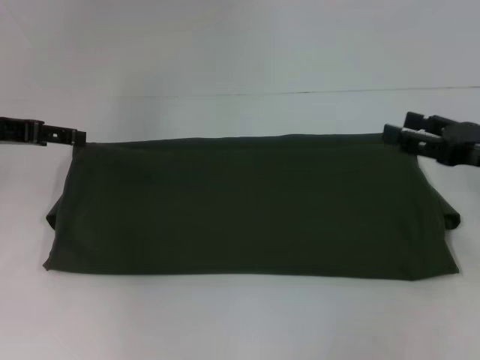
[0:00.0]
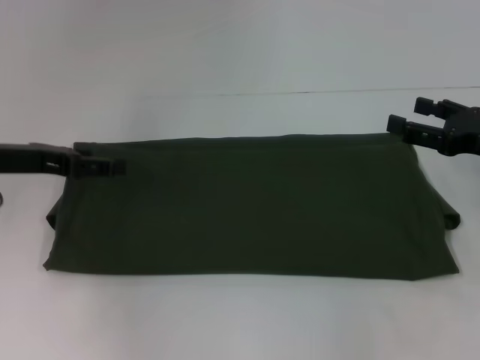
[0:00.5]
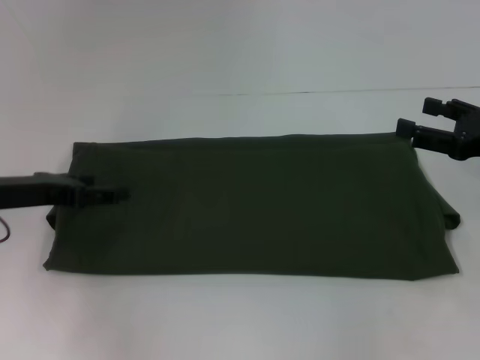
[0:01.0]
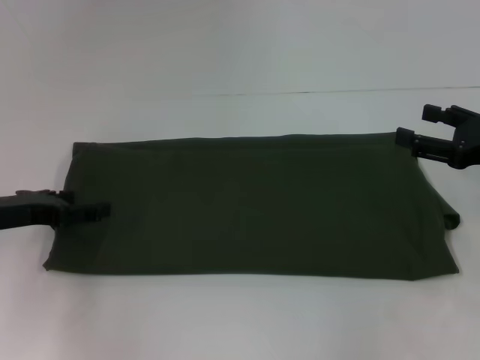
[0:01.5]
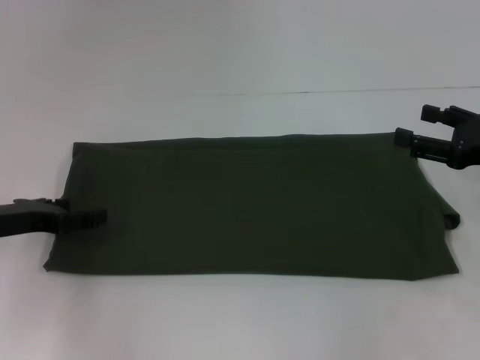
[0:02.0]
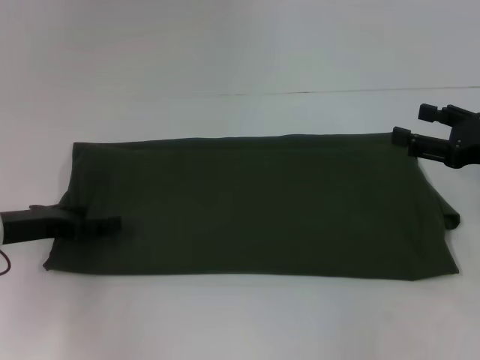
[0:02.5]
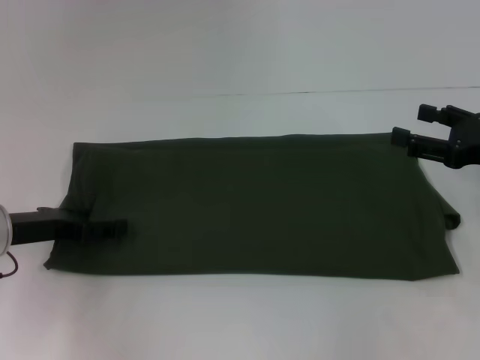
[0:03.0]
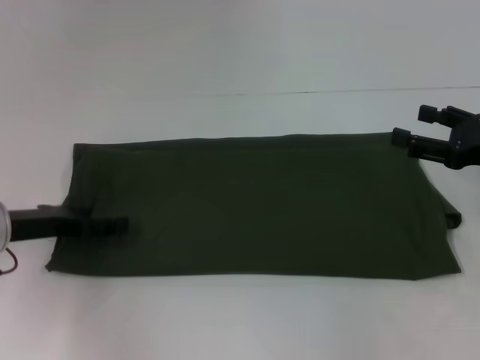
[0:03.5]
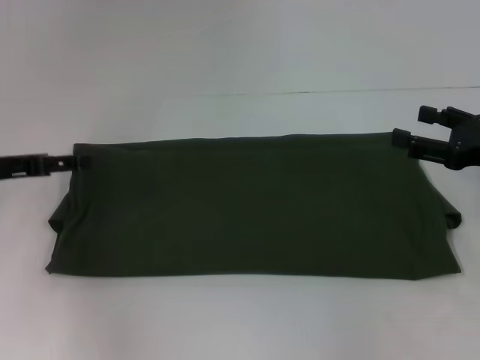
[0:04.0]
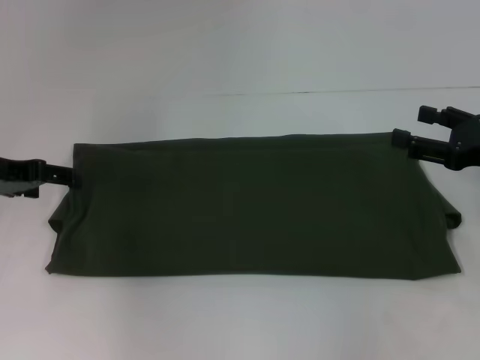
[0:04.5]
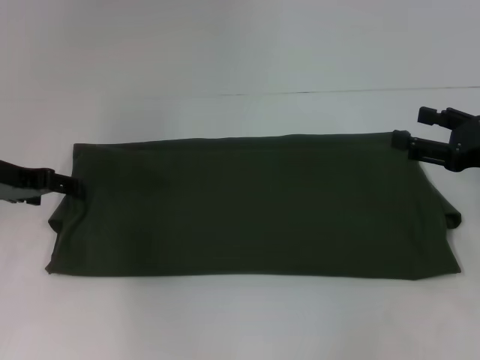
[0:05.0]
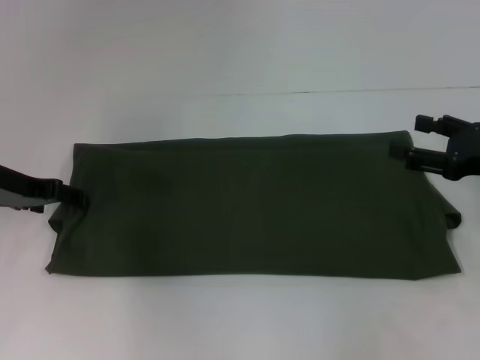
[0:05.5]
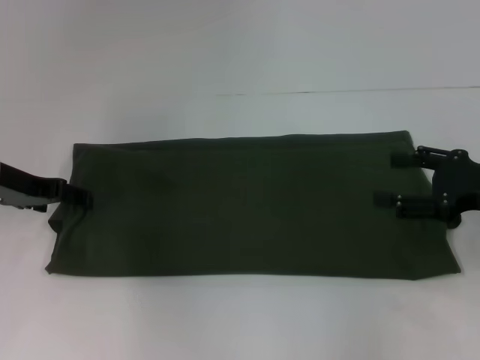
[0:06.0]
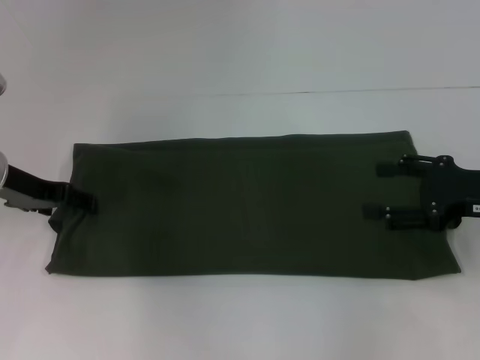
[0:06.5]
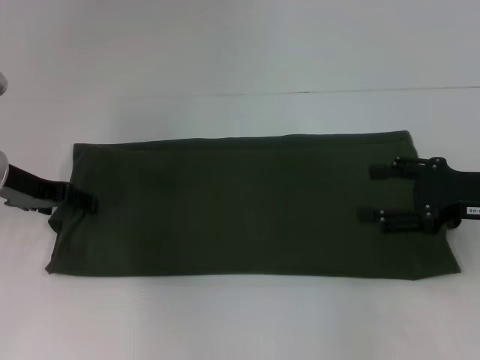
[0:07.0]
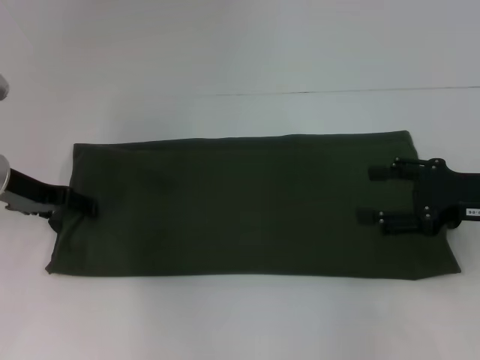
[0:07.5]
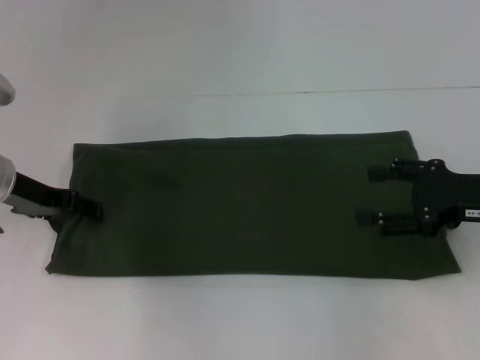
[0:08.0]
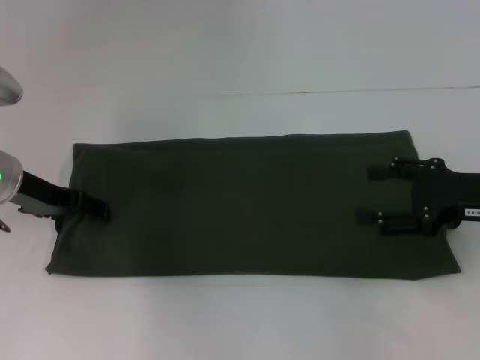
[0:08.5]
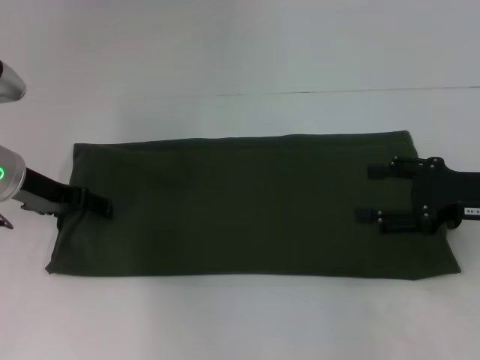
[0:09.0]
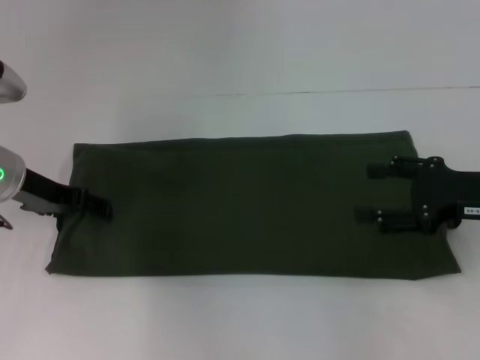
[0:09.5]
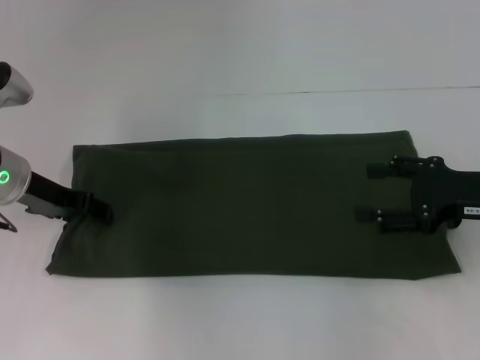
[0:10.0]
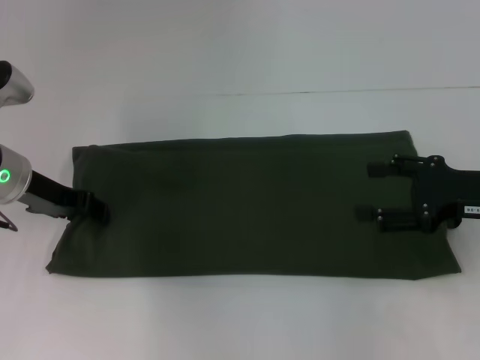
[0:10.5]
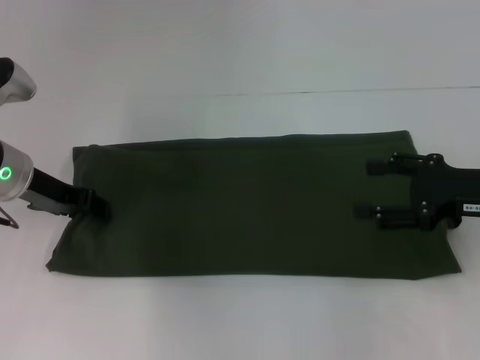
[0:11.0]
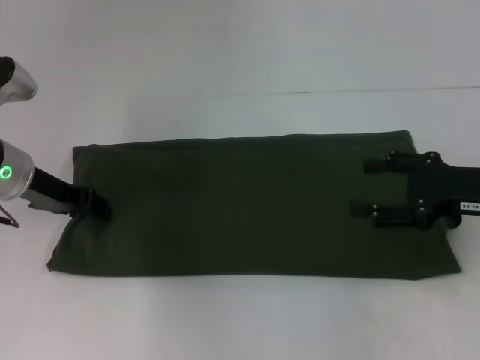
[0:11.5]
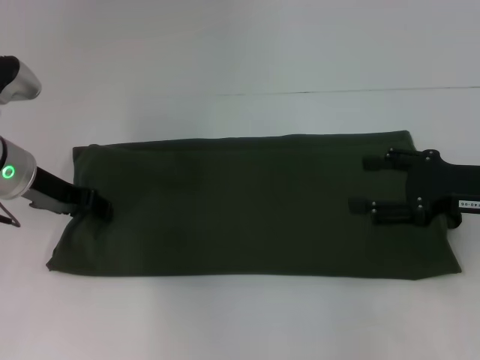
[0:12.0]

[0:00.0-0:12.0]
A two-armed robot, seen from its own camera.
0:00.0 to 0:02.0: The left gripper shifts roughly 10 cm downward and backward.
0:02.0 to 0:04.0: The left gripper shifts approximately 5 cm upward.
0:04.0 to 0:06.0: The left gripper shifts by some 5 cm.
0:06.0 to 0:10.0: There are only small adjustments of the grippers.
0:10.0 to 0:12.0: The left gripper closes up.

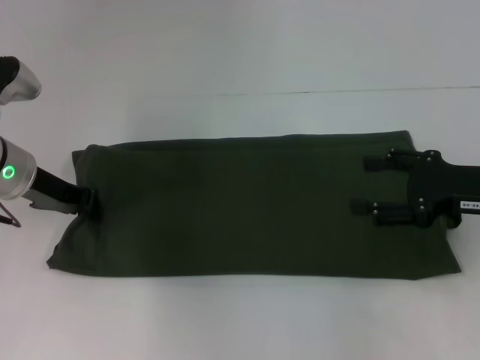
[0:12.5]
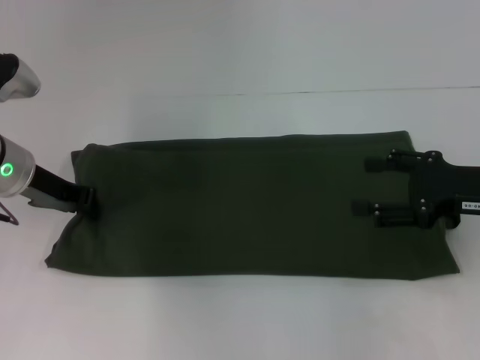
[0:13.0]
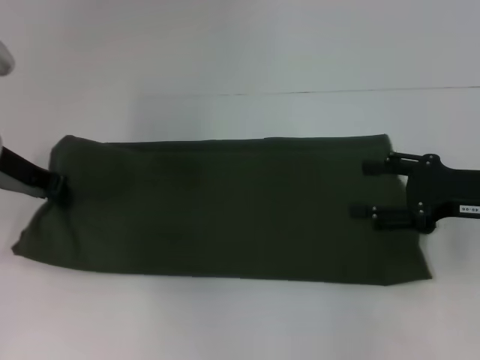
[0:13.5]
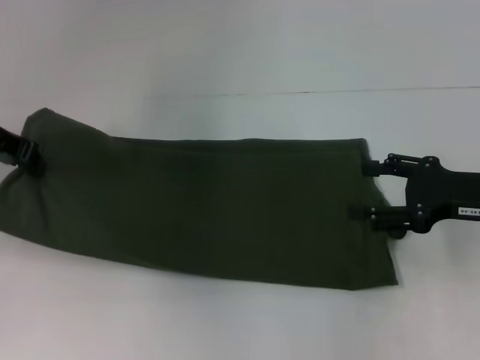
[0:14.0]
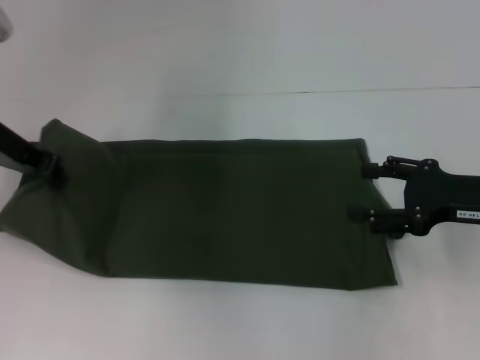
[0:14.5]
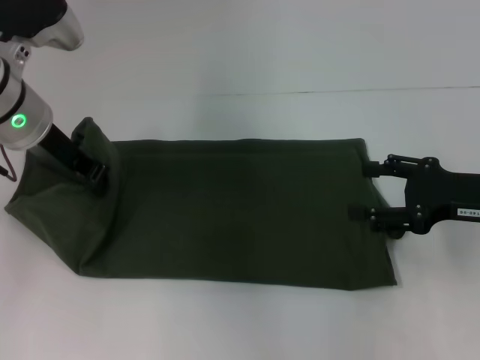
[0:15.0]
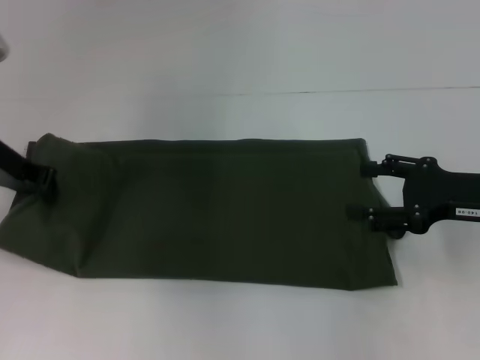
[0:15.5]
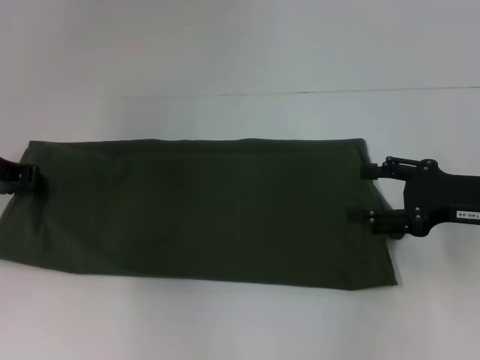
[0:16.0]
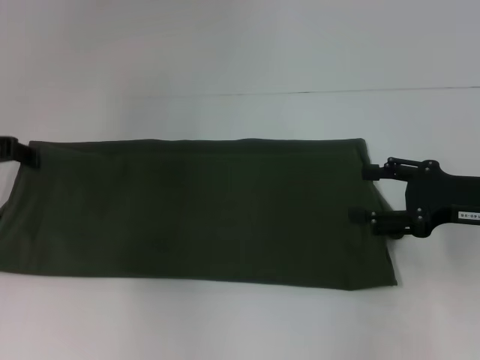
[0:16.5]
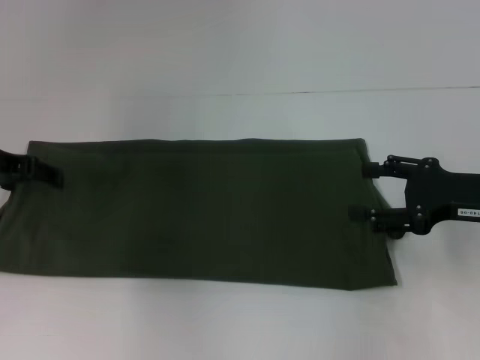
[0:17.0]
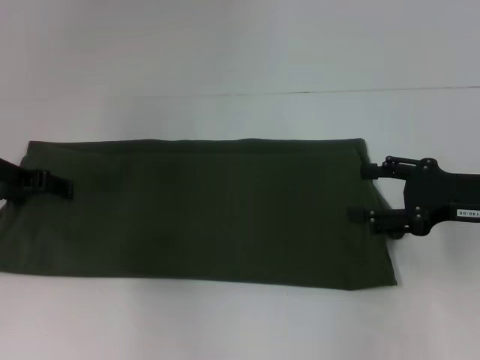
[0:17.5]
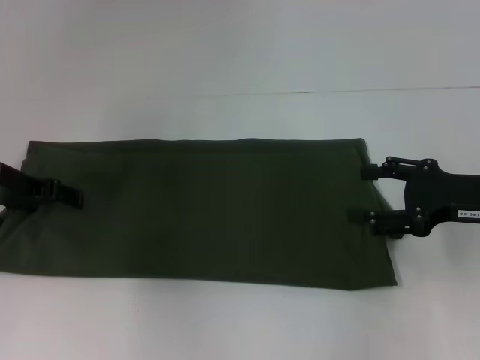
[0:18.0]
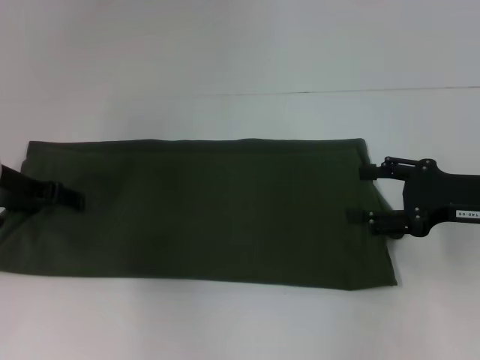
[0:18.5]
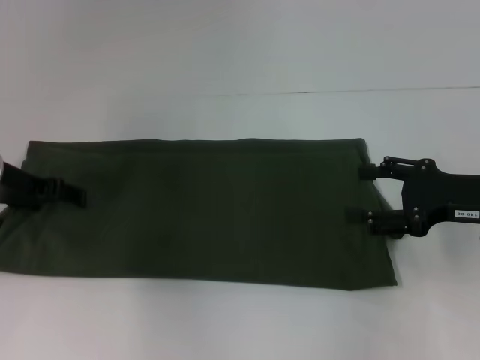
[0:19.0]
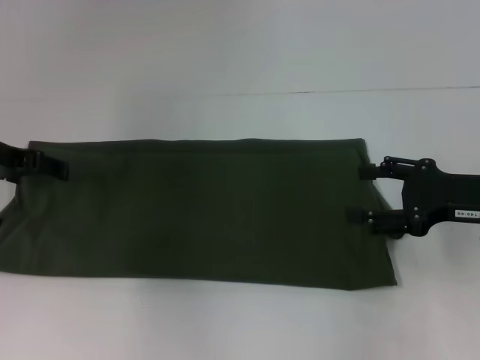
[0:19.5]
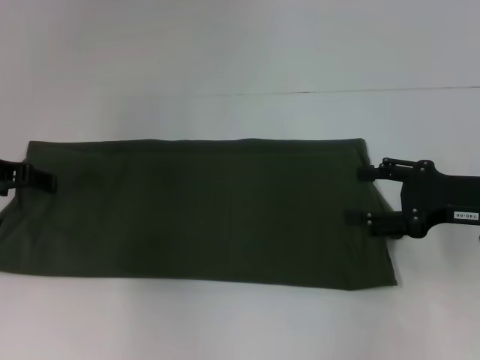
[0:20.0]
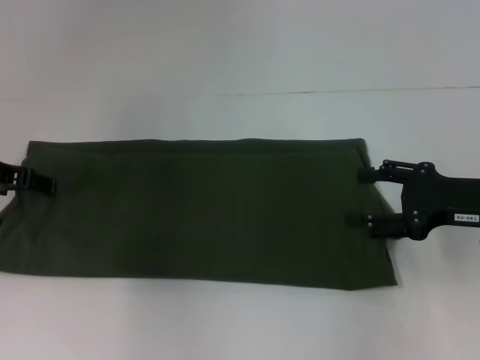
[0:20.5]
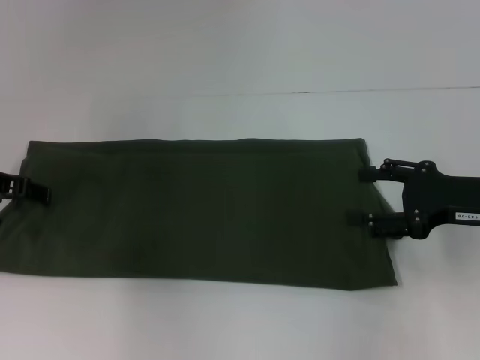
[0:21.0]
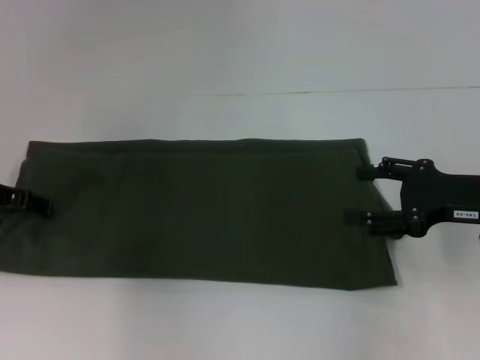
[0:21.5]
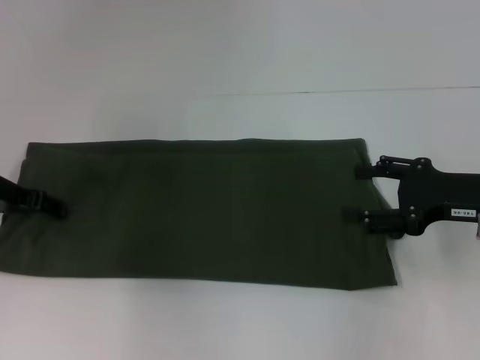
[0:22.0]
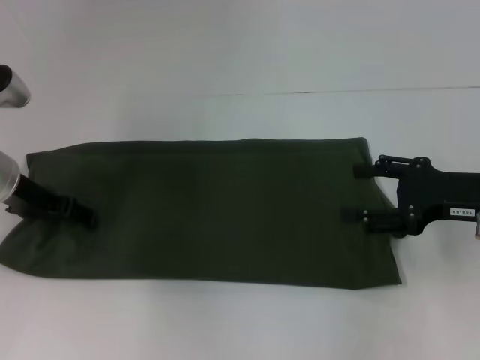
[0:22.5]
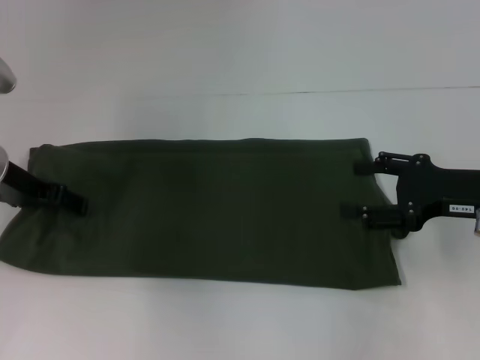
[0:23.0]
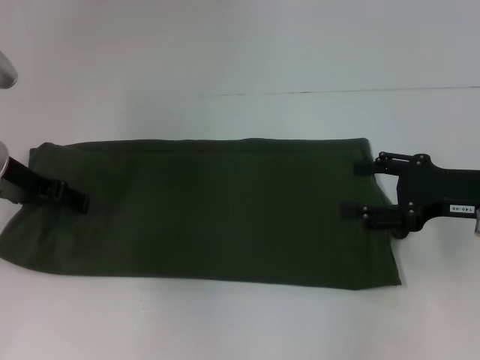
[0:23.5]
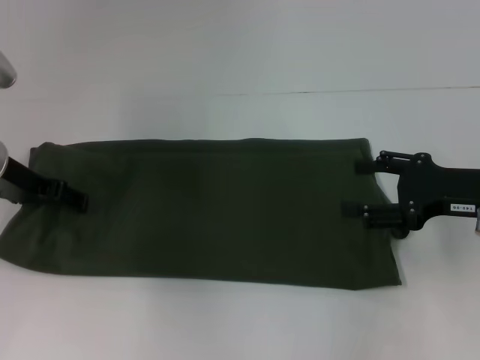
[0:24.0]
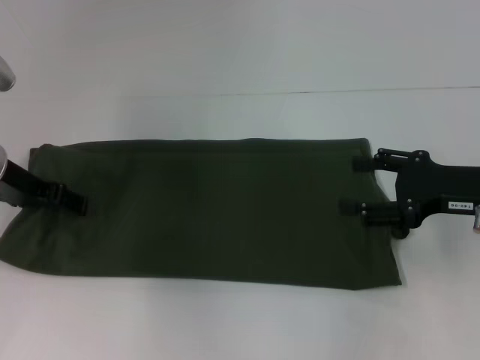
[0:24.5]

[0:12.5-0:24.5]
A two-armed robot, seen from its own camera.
0:12.5 to 0:14.5: The left gripper is displaced upward by some 5 cm.
0:14.5 to 0:16.5: The left gripper opens up.
0:16.5 to 0:18.5: The left gripper shifts about 5 cm downward.
0:18.5 to 0:24.5: The grippers make only small movements.

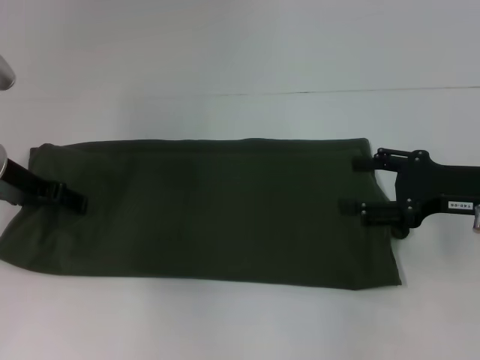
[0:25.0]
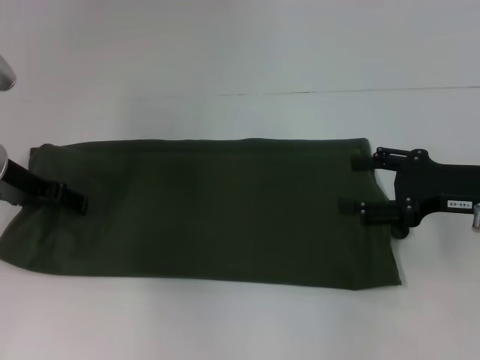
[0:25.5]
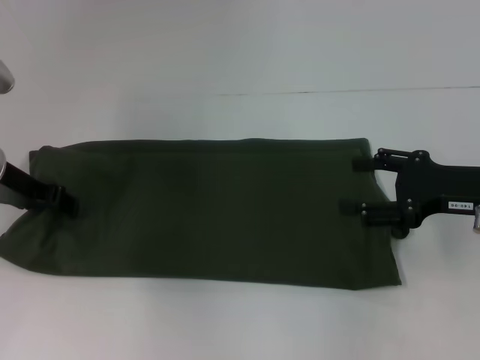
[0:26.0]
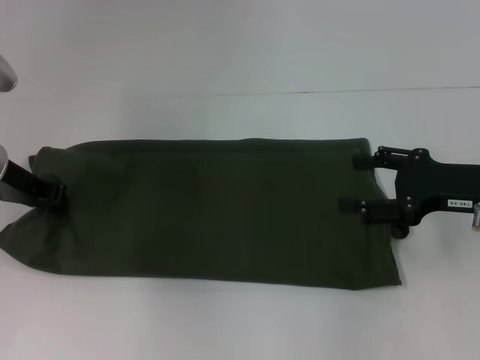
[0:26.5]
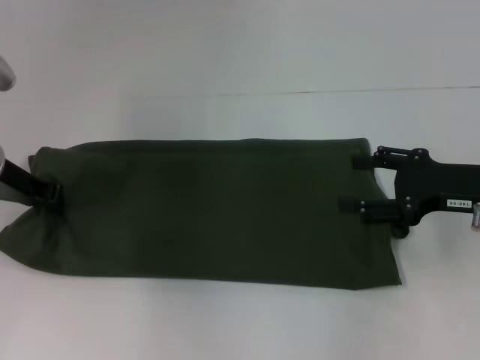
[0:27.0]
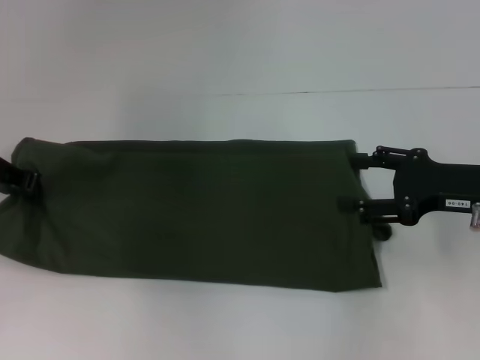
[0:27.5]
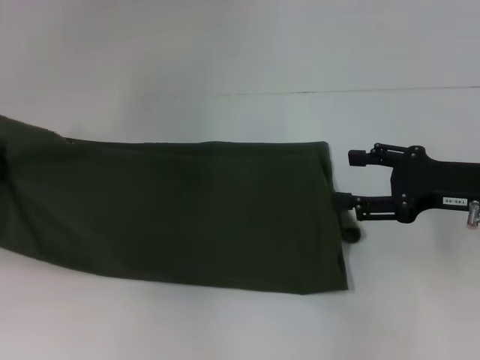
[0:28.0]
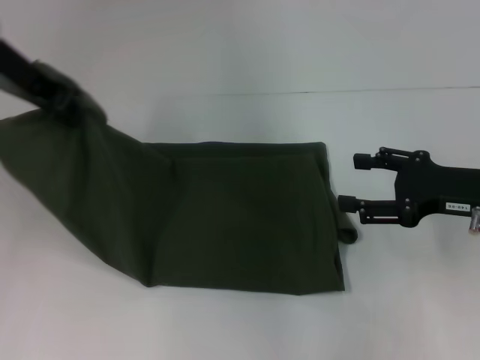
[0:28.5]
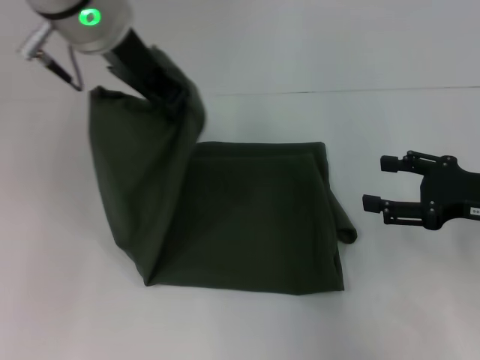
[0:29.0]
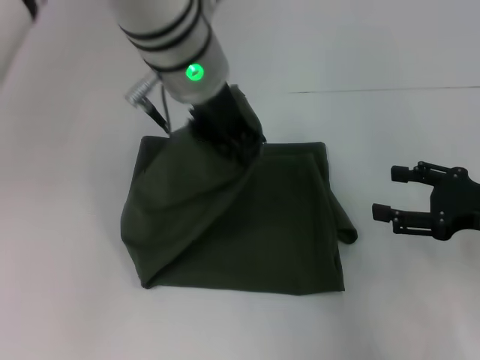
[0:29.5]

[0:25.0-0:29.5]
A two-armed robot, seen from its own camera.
0:25.0 to 0:27.0: The left gripper closes its fingers.
0:27.0 to 0:29.5: The left gripper shifts approximately 25 cm to the right and upward.
